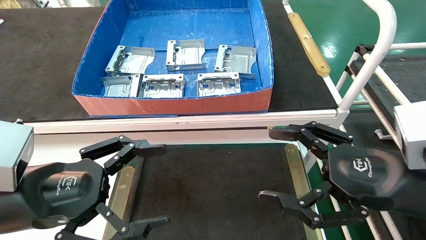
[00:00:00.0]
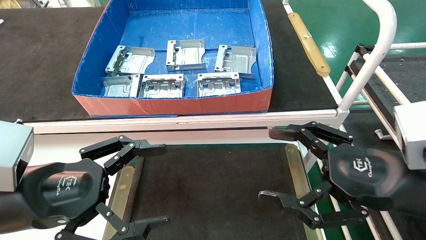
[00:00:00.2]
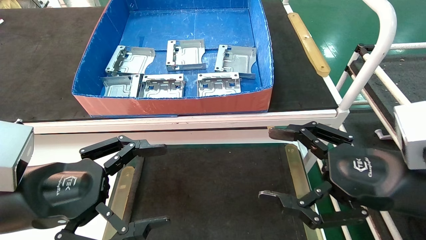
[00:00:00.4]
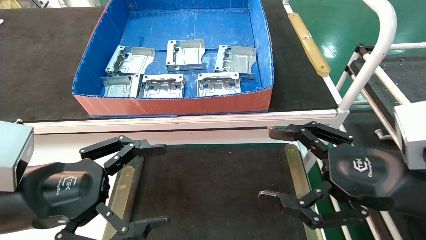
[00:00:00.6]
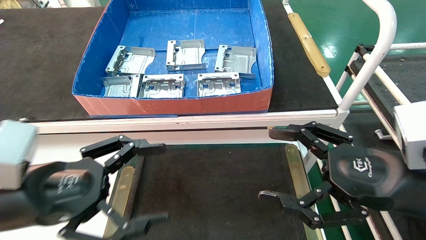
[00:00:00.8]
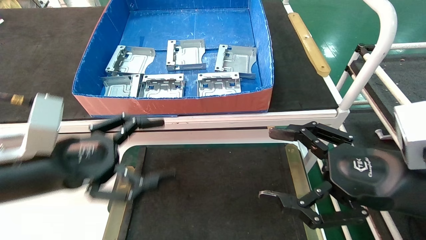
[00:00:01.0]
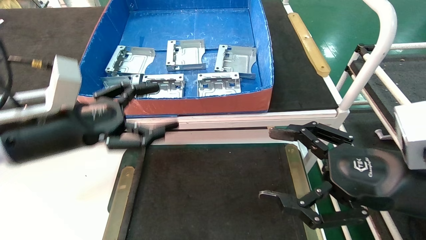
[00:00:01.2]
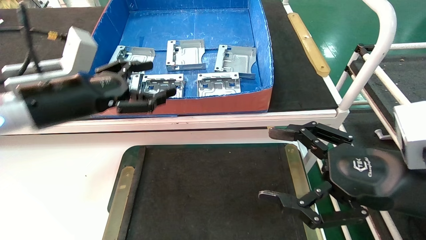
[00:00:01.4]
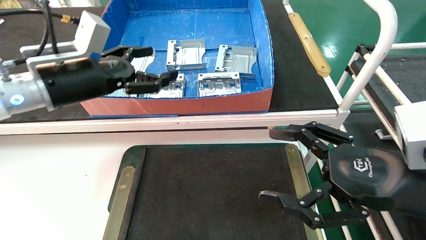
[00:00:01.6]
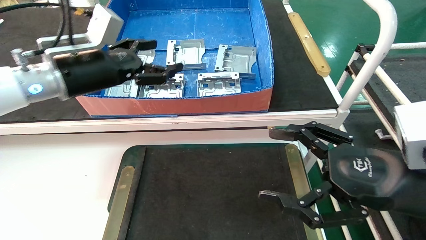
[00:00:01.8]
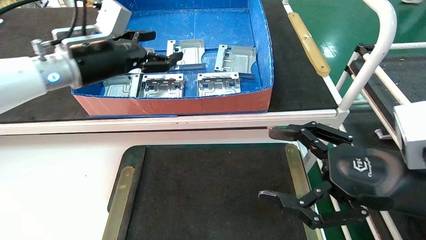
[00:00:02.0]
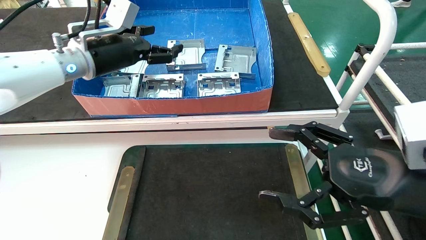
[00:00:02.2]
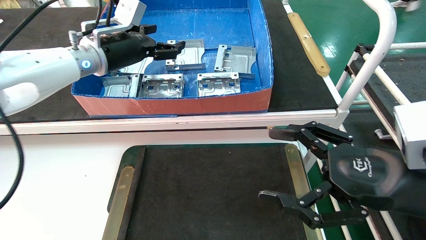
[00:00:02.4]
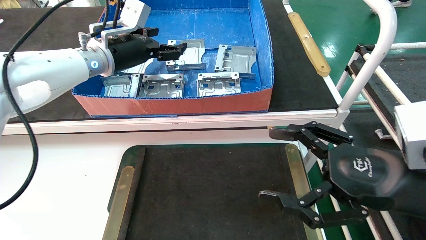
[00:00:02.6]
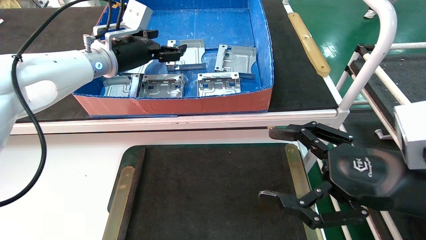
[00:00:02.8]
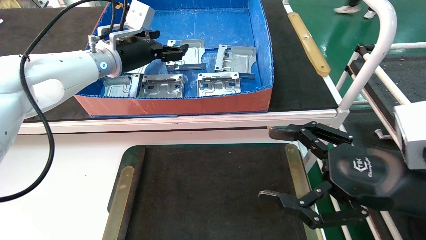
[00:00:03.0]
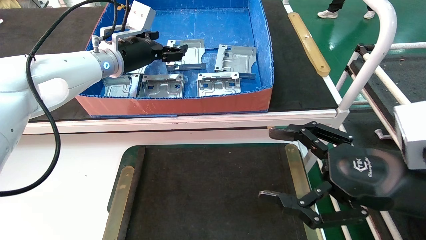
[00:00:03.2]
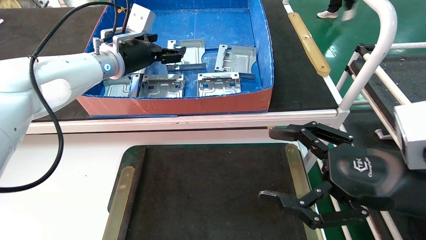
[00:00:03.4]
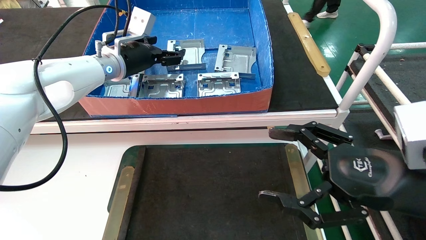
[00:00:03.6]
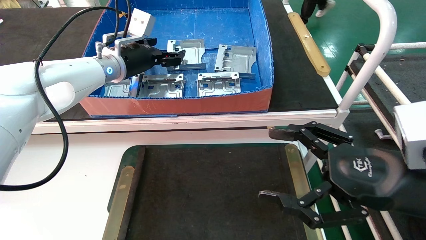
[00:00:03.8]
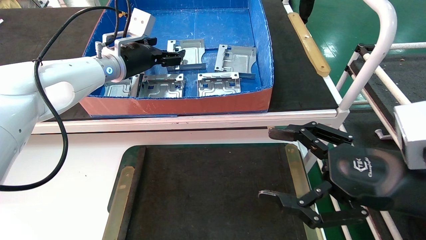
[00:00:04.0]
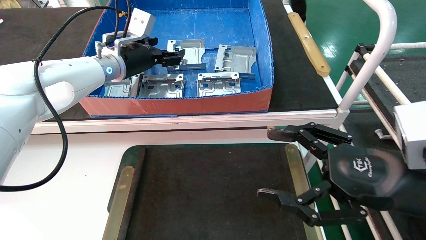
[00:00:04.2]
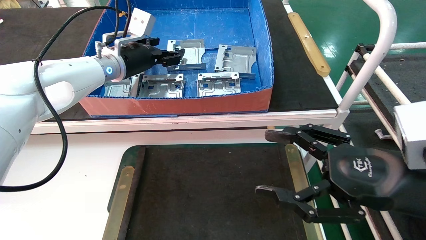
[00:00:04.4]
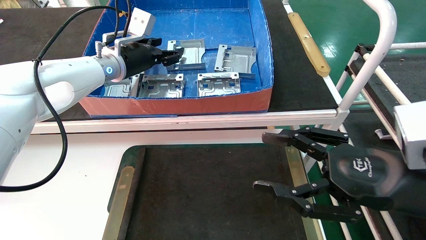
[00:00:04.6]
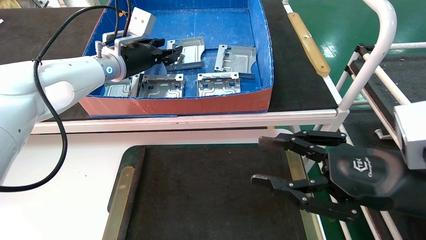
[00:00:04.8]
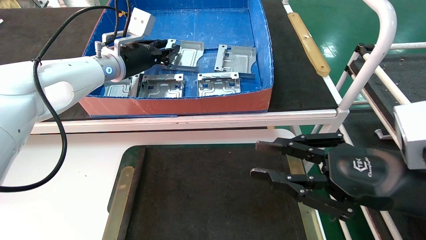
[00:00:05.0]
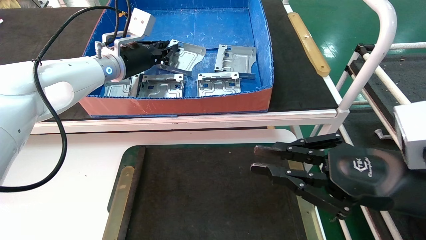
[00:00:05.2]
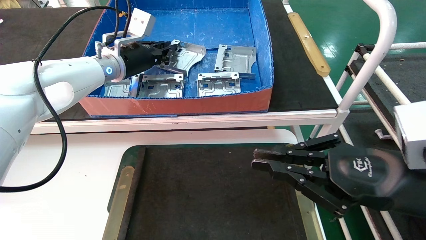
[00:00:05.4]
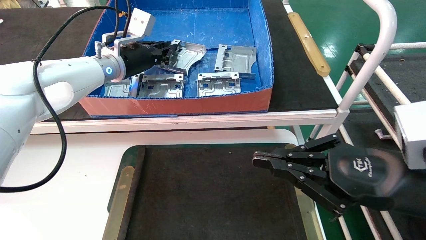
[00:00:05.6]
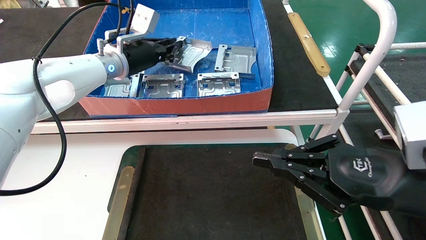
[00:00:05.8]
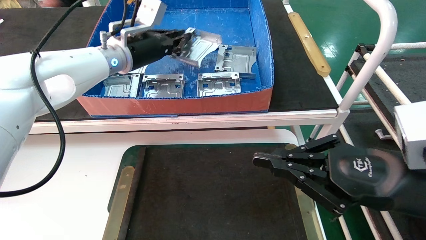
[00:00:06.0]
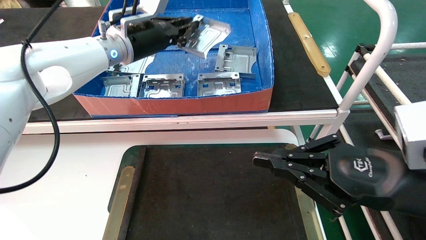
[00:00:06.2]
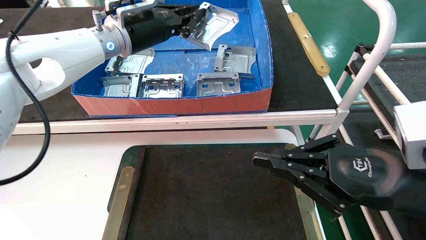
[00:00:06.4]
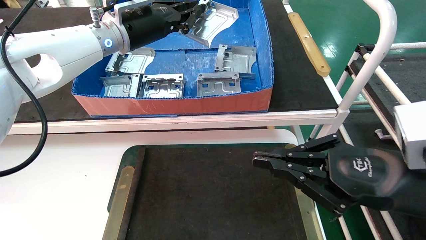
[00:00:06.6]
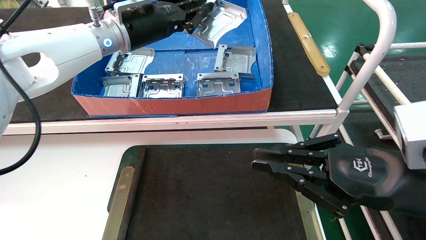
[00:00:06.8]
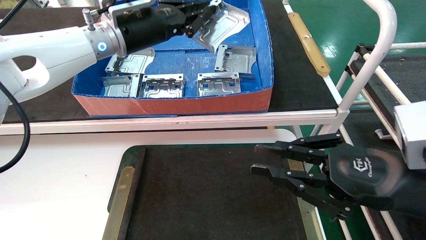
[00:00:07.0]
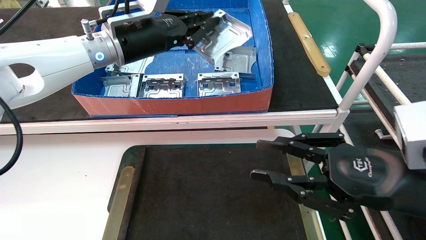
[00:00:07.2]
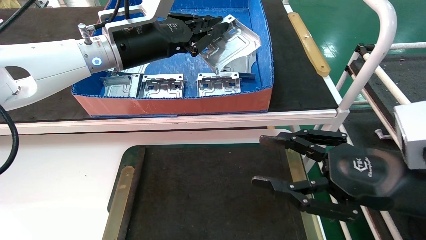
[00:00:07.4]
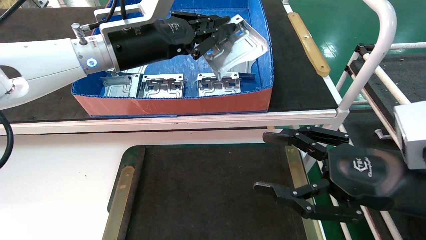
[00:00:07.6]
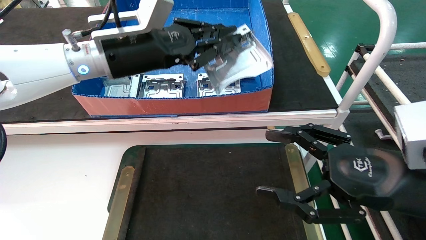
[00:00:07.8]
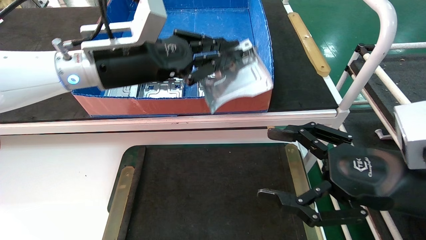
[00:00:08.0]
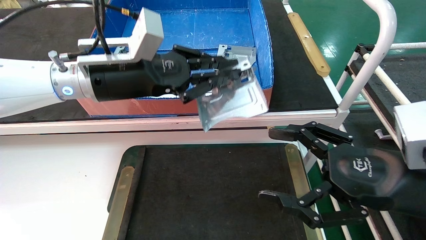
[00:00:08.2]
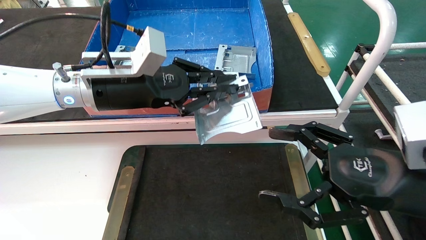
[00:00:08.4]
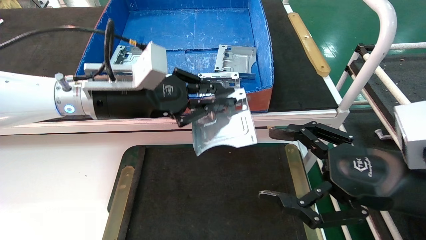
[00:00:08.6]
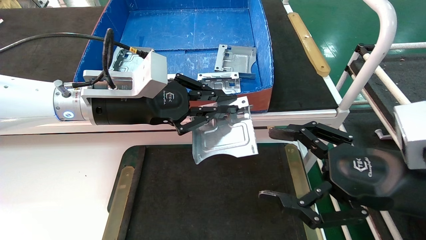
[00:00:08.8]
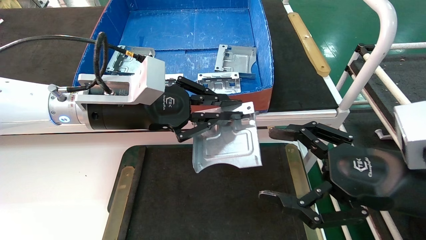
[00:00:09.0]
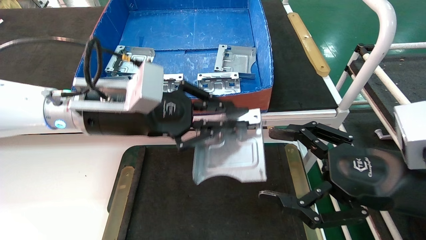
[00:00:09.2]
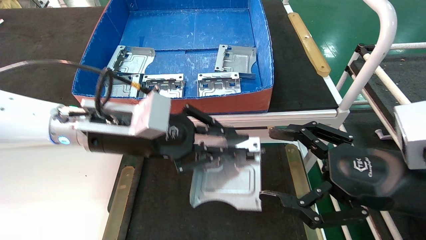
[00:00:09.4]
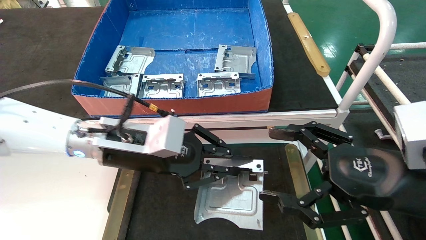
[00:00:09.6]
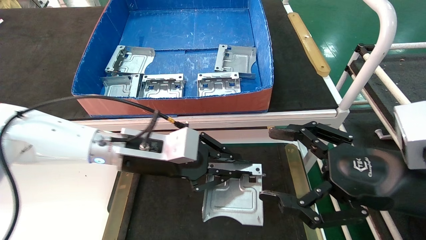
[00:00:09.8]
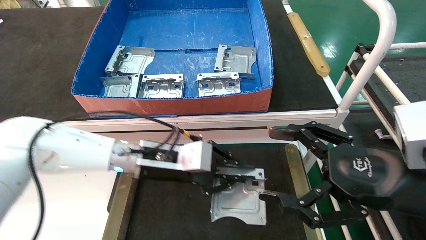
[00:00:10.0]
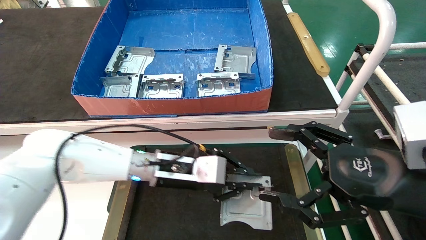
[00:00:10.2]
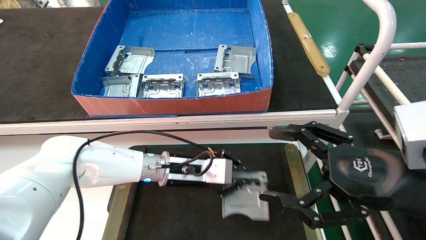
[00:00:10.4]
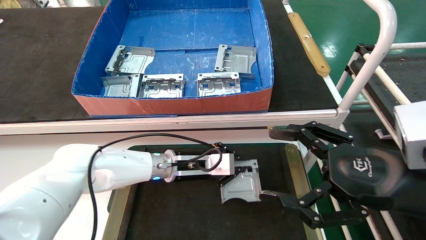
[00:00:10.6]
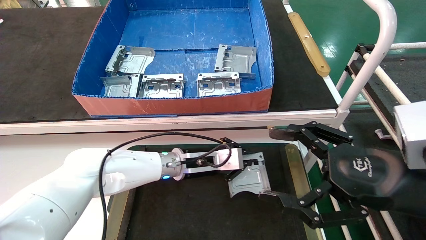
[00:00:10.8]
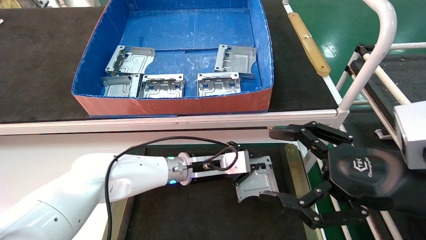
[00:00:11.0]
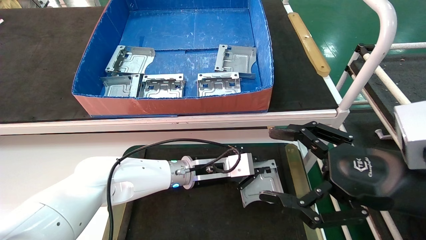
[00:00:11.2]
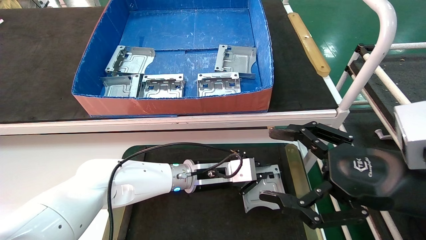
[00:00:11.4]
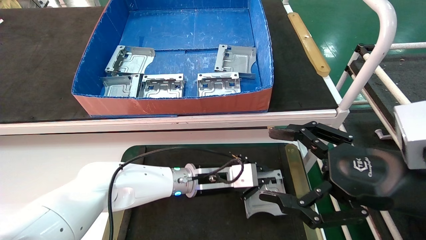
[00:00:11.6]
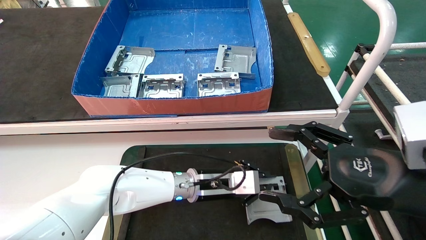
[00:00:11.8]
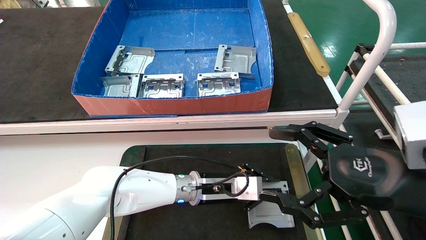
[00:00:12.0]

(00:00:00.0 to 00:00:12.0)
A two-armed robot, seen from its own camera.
Task of the whole recording: take the accessories out of the box and place them on the table.
Step, 00:00:01.0 - 00:00:05.0: Pick up the hard drive bracket from the feeding area.
00:00:00.0 - 00:00:01.6: The left gripper goes approximately 20 cm forward and upward.
00:00:01.6 - 00:00:03.0: The left gripper is displaced forward by roughly 15 cm.
00:00:03.0 - 00:00:04.4: The grippers move only a little.
00:00:04.4 - 00:00:06.0: The left gripper closes up; the right gripper closes up.
00:00:06.0 - 00:00:07.6: The right gripper opens up. The left gripper travels backward by about 10 cm.
00:00:07.6 - 00:00:09.0: The right gripper opens up. Meanwhile the left gripper is displaced downward and backward by about 10 cm.
00:00:09.0 - 00:00:10.4: The left gripper moves downward, forward and to the right, roughly 20 cm.
00:00:10.4 - 00:00:12.0: The left gripper goes some 5 cm to the right.

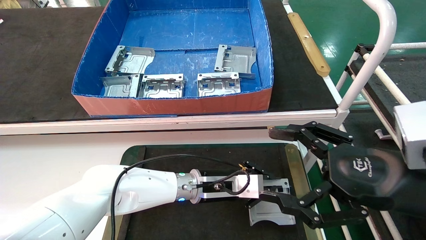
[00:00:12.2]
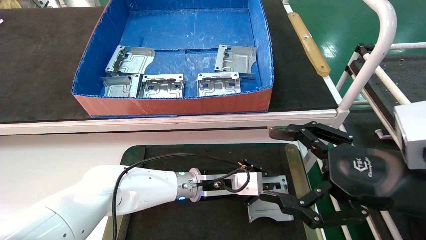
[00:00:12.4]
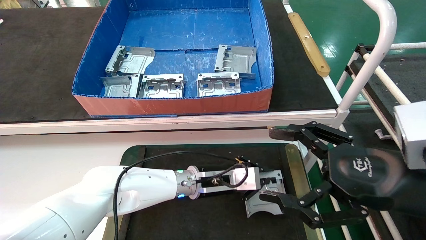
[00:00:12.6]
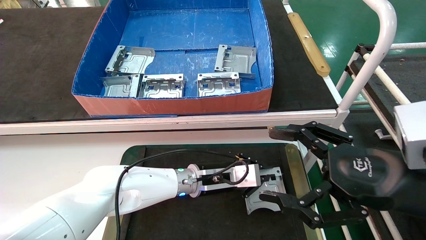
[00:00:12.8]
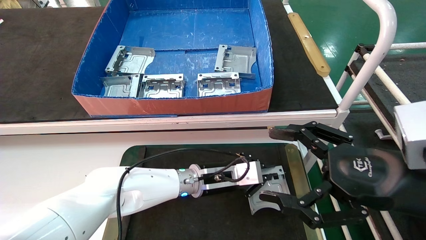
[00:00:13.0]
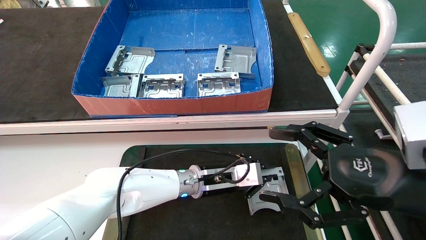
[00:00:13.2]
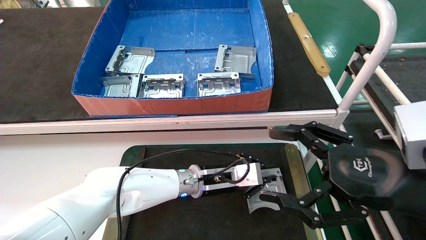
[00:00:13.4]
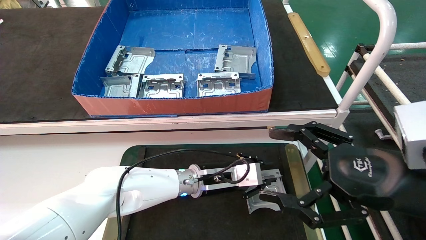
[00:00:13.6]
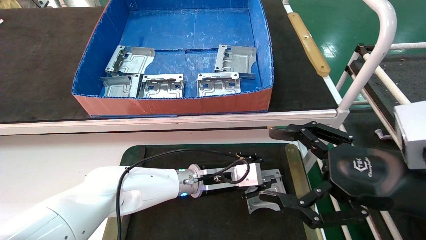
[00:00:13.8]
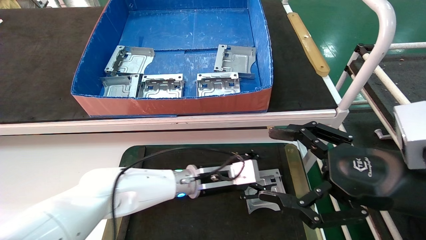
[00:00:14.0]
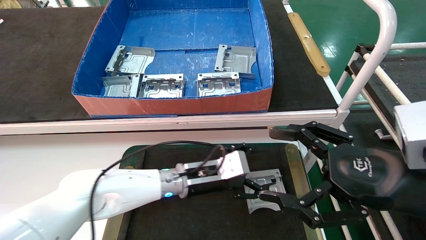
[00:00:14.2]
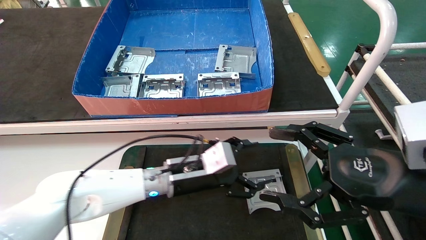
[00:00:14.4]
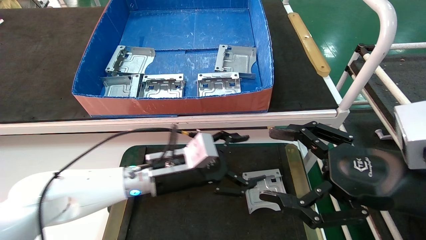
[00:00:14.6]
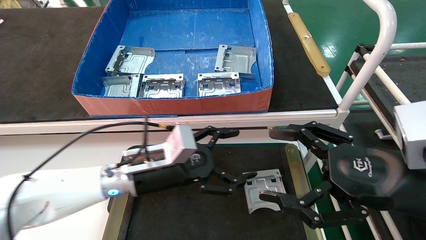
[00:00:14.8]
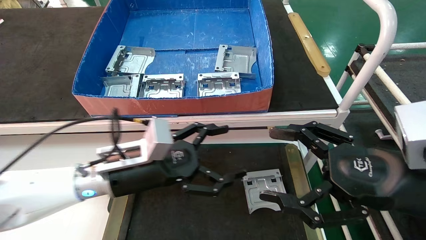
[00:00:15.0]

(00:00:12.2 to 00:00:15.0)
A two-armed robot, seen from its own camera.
Task of the whole recording: take the accessories out of the box and place them on the table.
00:00:12.2 - 00:00:13.6: The grippers stay close to where they were, moving slightly.
00:00:13.6 - 00:00:15.0: The left gripper travels to the left, backward and upward by some 15 cm, and opens up.
